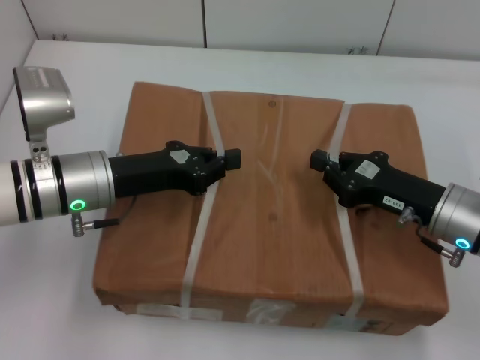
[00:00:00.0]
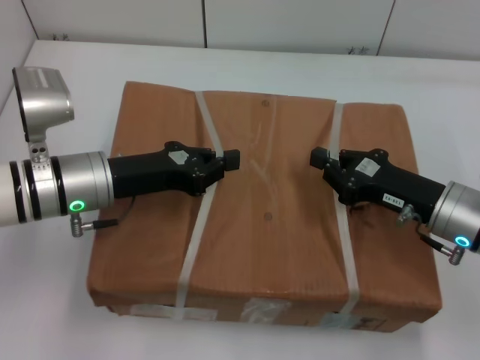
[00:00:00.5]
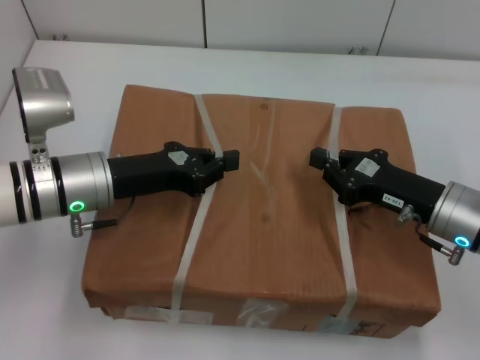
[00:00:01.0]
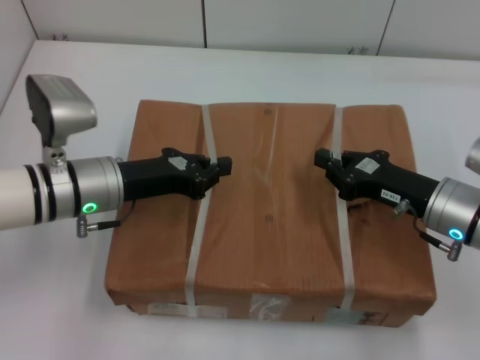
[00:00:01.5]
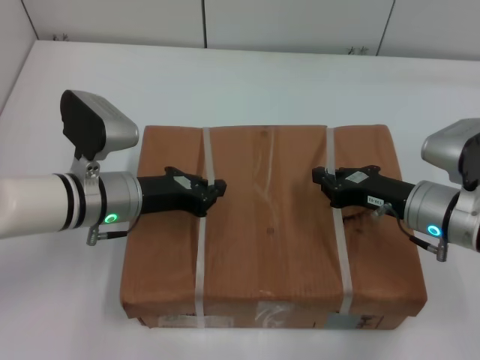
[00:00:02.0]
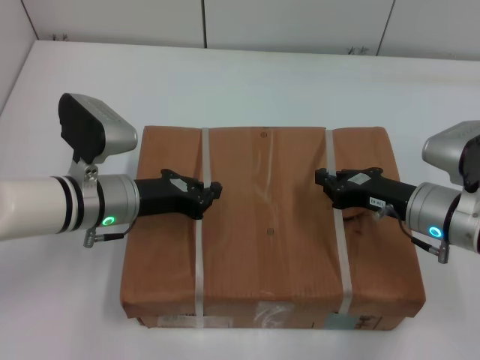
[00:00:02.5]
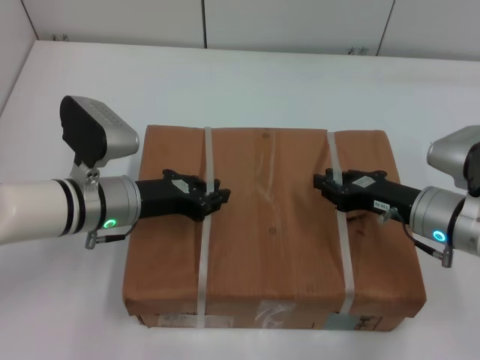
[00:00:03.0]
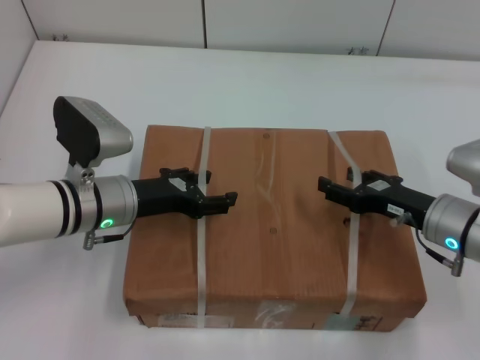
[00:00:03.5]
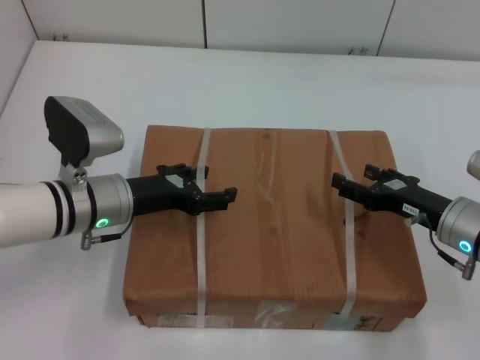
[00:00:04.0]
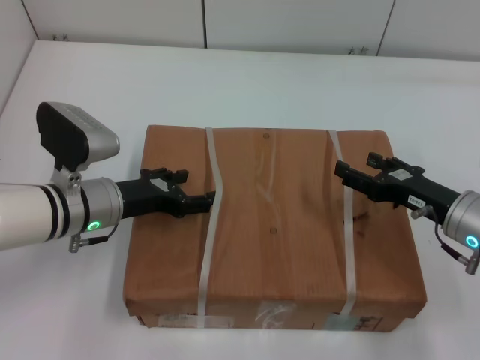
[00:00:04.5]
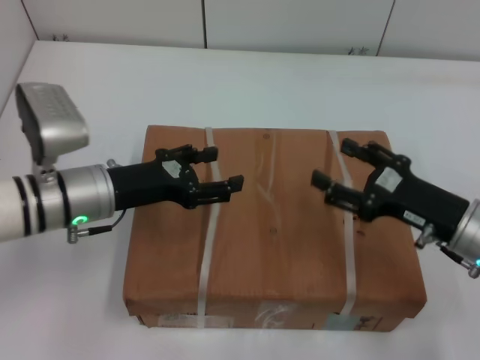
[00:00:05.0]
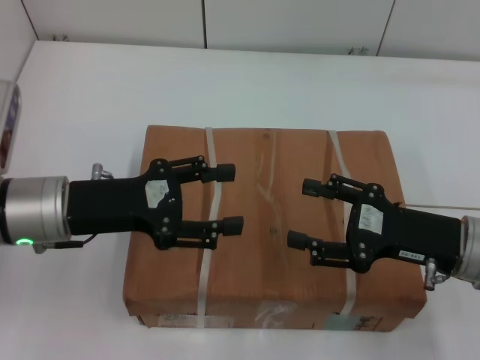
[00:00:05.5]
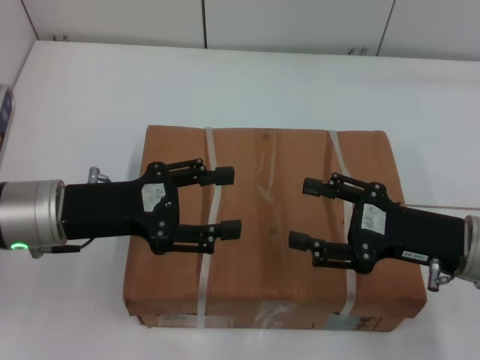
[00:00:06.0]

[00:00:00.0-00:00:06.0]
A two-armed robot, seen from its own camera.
Task of the whole recording: place the box on the table with both arms.
Step, 00:00:00.0 to 00:00:02.0: Place the box on the table with left gripper.
Step, 00:00:00.0 to 00:00:02.0: Place the box on the table with right gripper.
Step, 00:00:02.5 to 00:00:04.5: Loosen the box on the table with left gripper.
Step, 00:00:02.5 to 00:00:04.5: Loosen the box on the table with right gripper.
00:00:02.0 to 00:00:04.0: The right gripper opens its fingers; the left gripper opens.
00:00:04.0 to 00:00:06.0: The right gripper is displaced upward by roughly 5 cm. The left gripper moves upward and backward, roughly 10 cm.

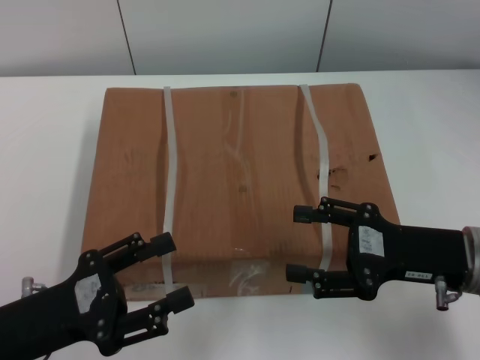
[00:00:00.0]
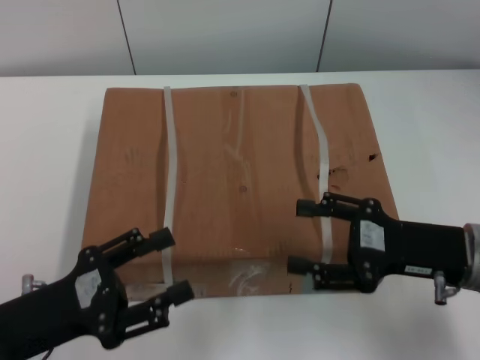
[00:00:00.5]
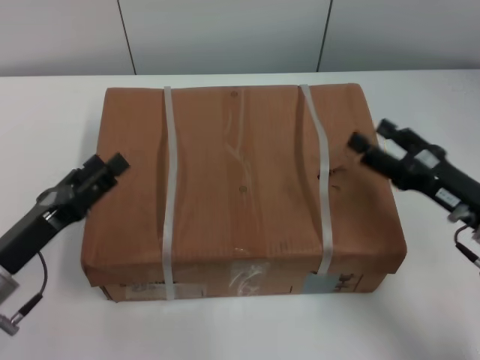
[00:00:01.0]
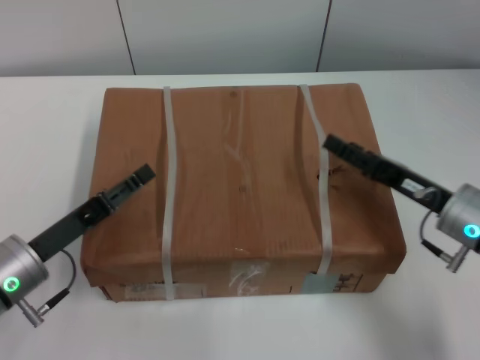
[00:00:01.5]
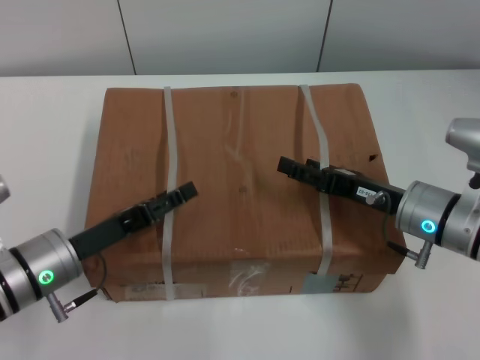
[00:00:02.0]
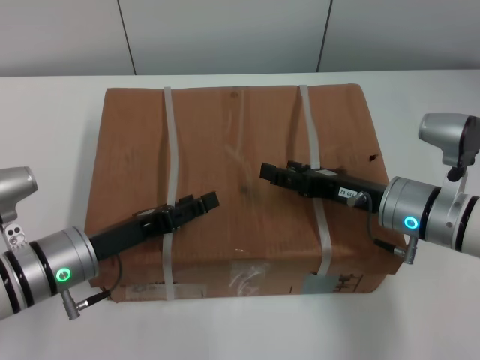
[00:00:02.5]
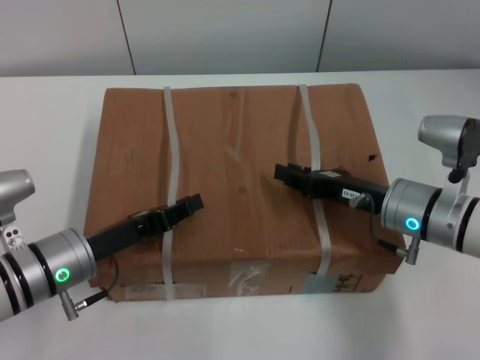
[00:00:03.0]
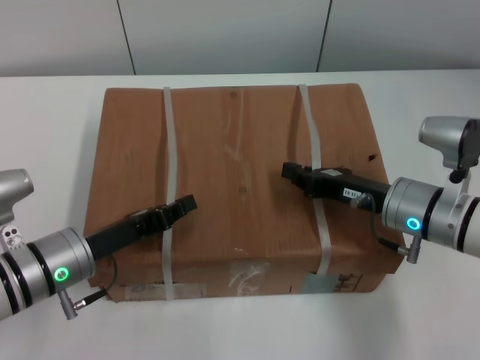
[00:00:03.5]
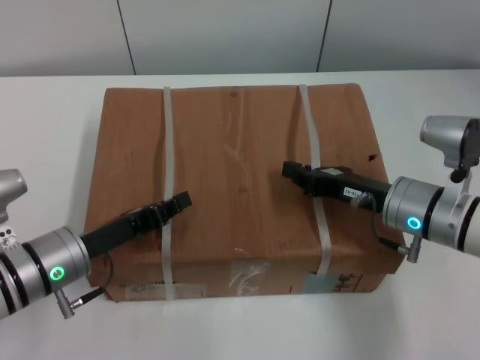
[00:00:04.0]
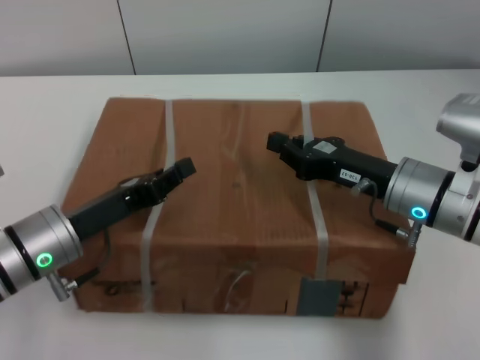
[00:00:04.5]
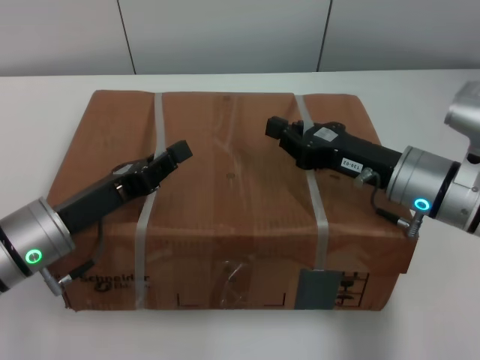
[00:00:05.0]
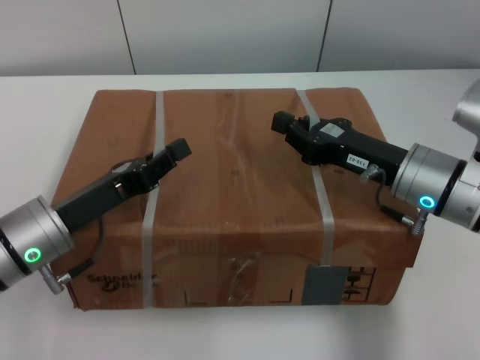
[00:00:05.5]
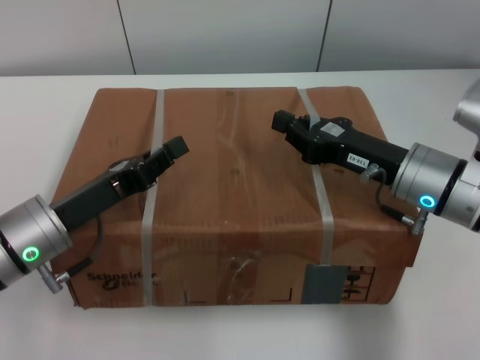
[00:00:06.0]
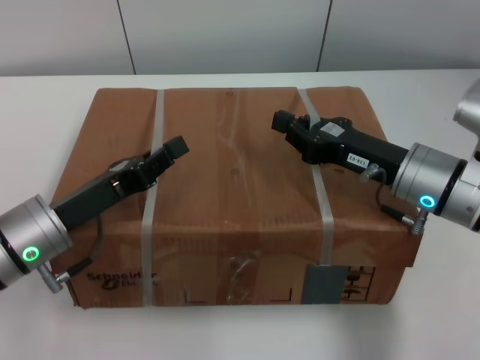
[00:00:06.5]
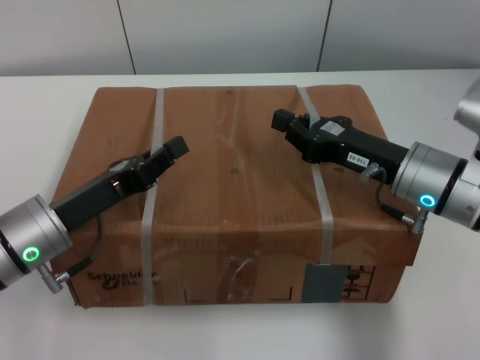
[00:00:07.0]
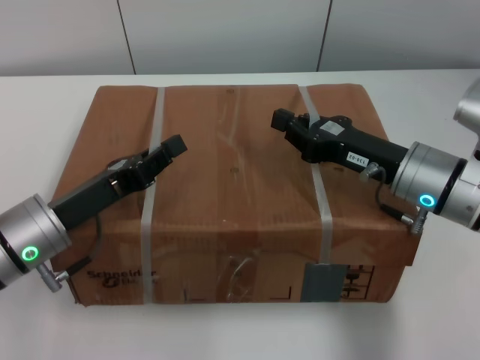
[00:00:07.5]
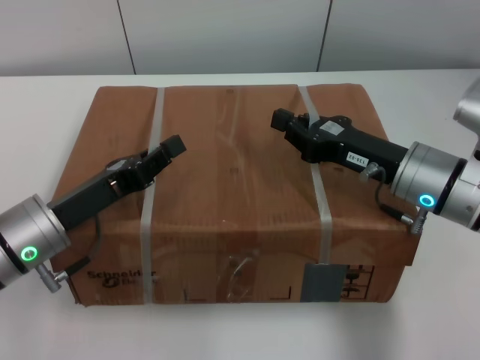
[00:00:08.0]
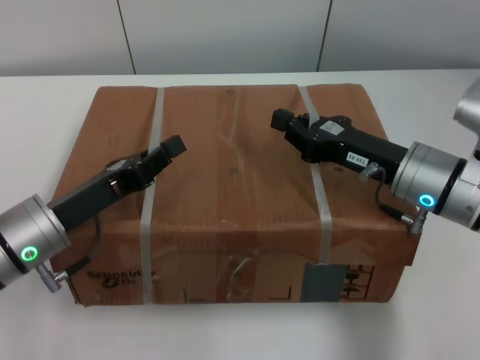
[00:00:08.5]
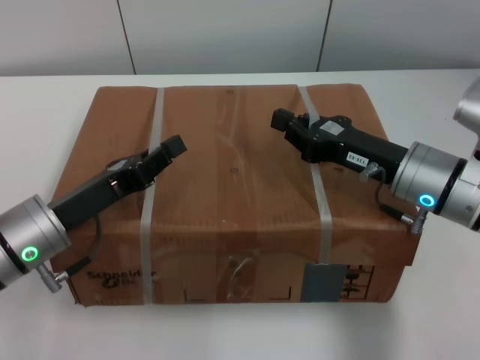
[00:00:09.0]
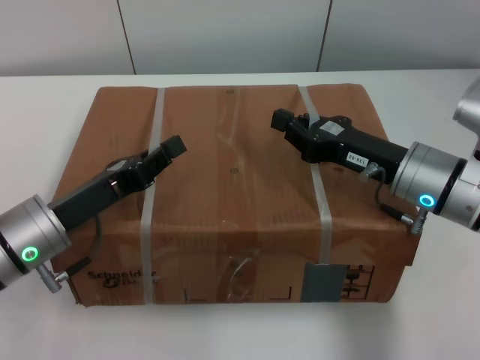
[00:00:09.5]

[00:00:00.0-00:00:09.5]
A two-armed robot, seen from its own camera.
Task of the whole recording: pick up the box from the table with both arms.
Step, 00:00:00.0 to 00:00:03.0: Grasp the bandage with left gripper.
Step, 00:00:00.0 to 00:00:03.0: Grasp the bandage with right gripper.
Step, 00:00:03.5 to 00:00:05.5: Lift the box with left gripper.
Step, 00:00:03.5 to 00:00:05.5: Lift the box with right gripper.
00:00:00.0 to 00:00:02.0: Both grippers move forward, some 5 cm.
00:00:02.0 to 00:00:04.0: The left gripper closes its fingers. Meanwhile the right gripper closes its fingers.
00:00:05.5 to 00:00:09.5: Neither gripper changes place.
